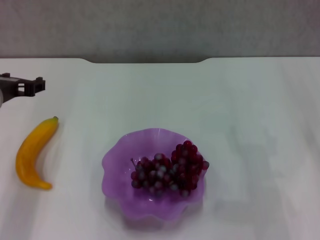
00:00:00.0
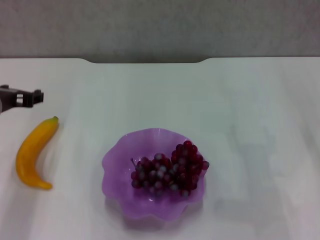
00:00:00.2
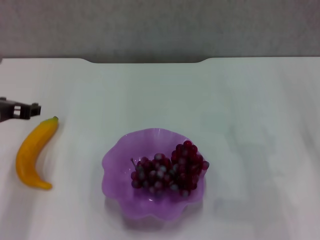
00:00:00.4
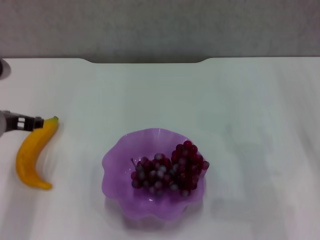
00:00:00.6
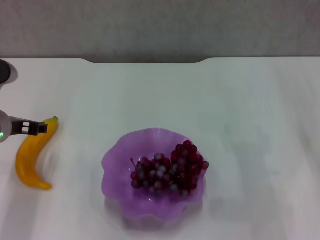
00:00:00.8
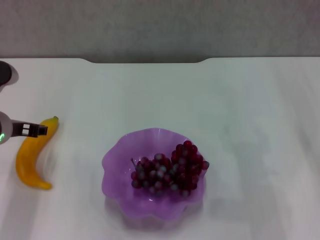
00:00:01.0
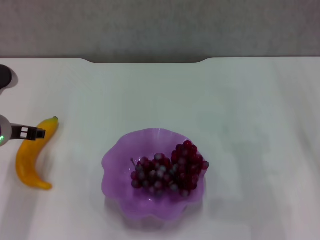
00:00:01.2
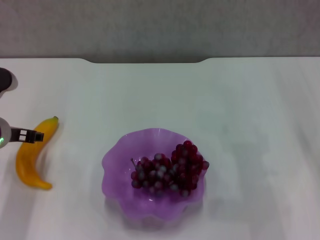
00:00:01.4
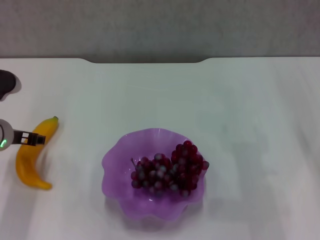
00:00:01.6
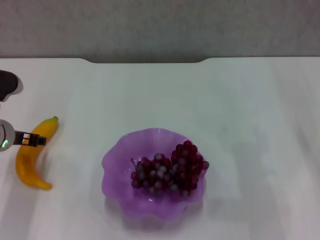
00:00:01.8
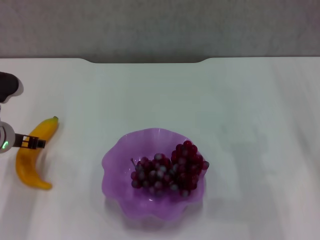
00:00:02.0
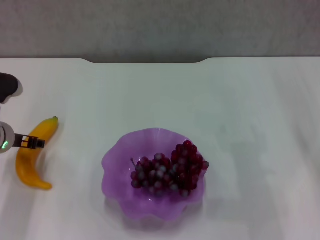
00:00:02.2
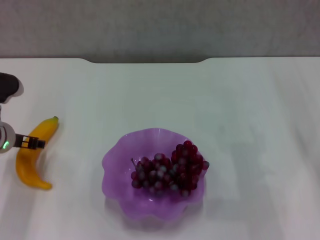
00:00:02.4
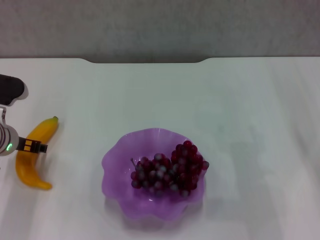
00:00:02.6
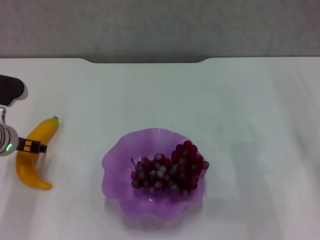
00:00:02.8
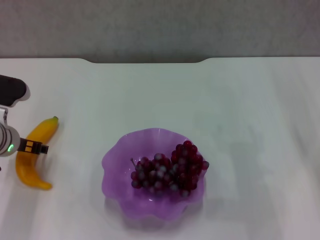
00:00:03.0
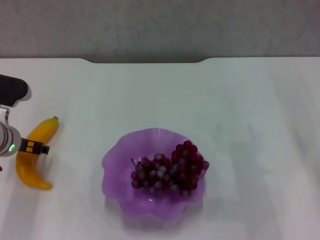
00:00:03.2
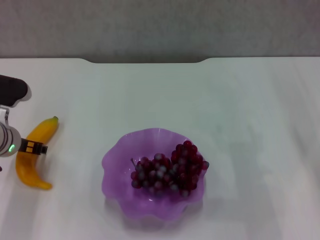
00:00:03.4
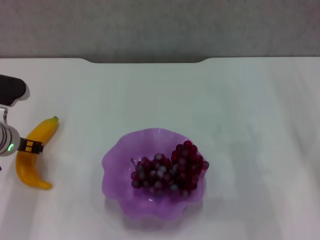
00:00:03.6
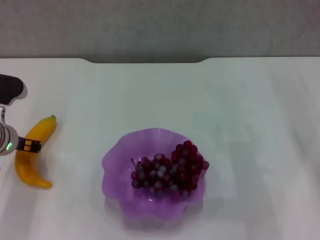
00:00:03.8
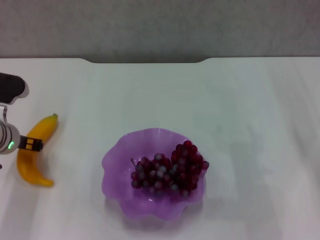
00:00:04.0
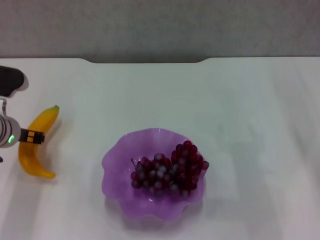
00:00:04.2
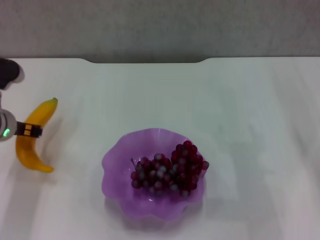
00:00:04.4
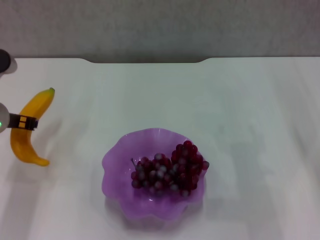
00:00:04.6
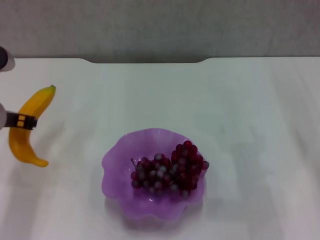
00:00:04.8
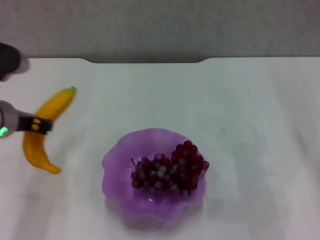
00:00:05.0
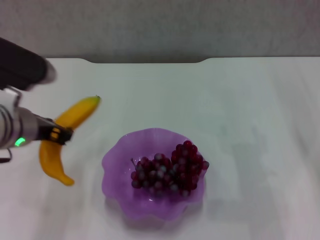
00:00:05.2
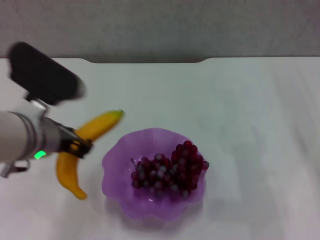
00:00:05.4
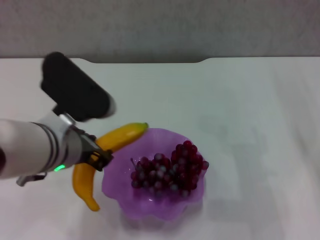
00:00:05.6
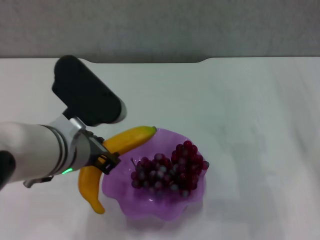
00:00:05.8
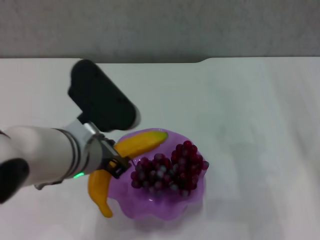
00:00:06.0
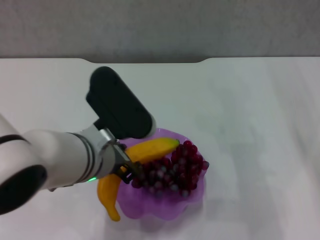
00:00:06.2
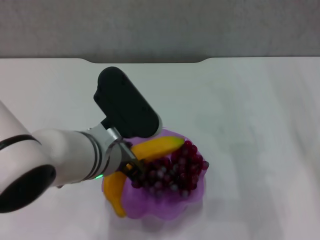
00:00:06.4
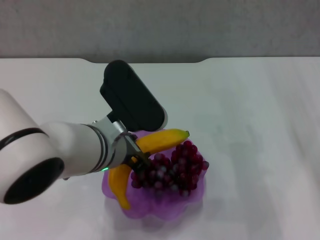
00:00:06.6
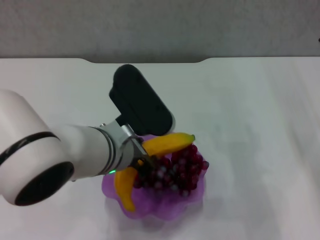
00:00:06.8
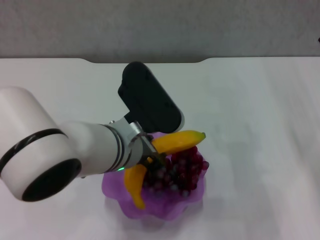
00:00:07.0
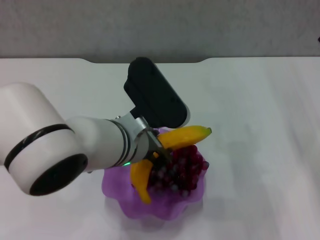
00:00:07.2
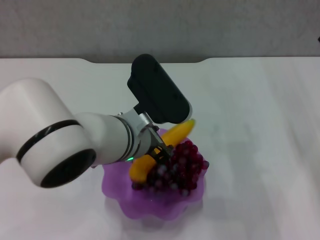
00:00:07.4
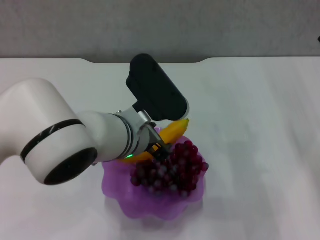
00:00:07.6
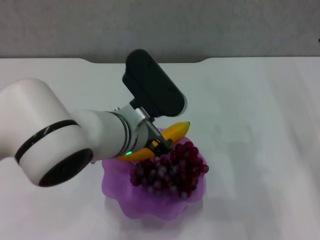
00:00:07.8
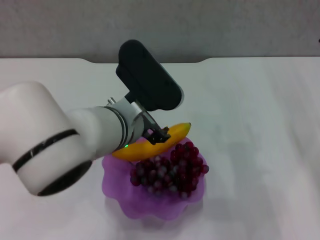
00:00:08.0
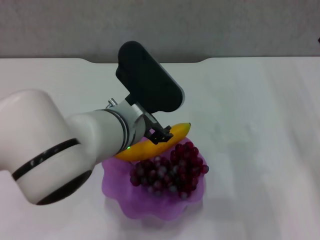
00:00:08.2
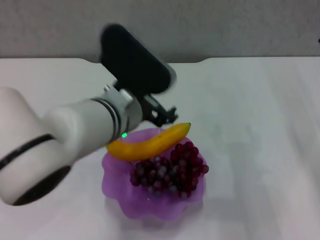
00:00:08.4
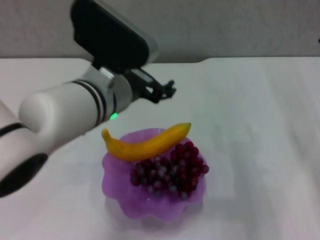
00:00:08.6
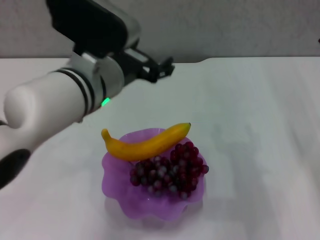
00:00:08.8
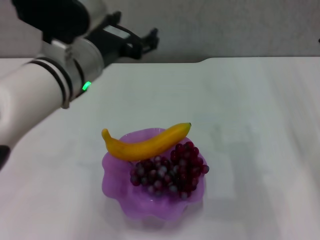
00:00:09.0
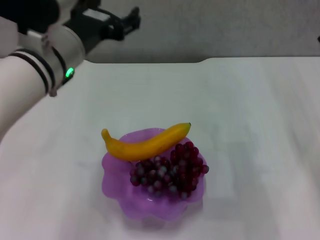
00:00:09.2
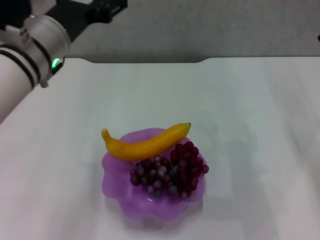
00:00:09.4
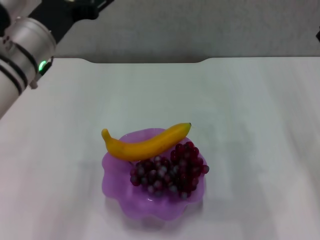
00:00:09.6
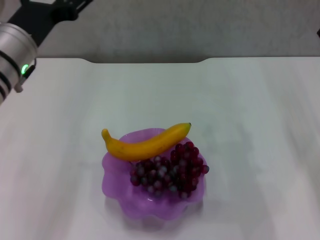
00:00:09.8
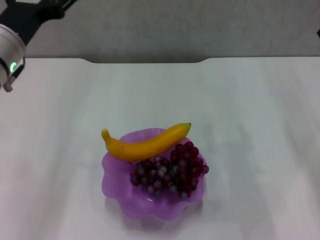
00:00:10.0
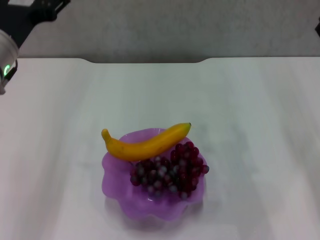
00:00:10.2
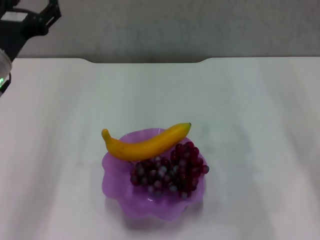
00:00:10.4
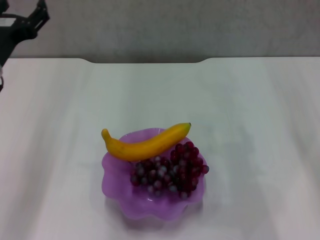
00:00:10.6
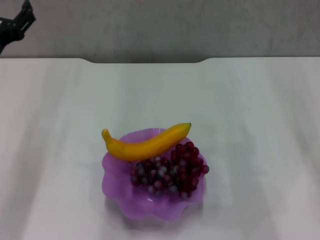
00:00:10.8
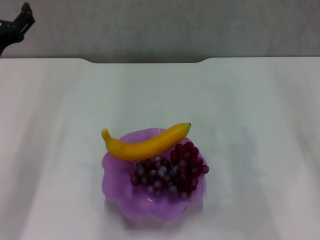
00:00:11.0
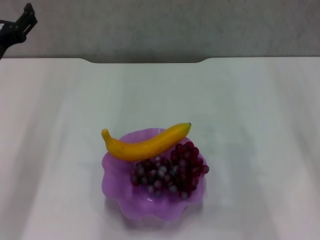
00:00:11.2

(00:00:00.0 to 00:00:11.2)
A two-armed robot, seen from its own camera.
Step, 00:00:00.0 - 00:00:03.8: Grasp the banana with left gripper.
Step, 00:00:04.0 - 00:00:07.8: Place the banana in the purple plate with left gripper.
00:00:00.0 - 00:00:01.6: The left gripper is displaced downward by about 5 cm.
00:00:01.6 - 00:00:03.2: The grippers make only small movements.
00:00:03.2 - 00:00:04.8: The left gripper travels upward by some 5 cm, and closes.
00:00:04.8 - 00:00:06.4: The left gripper shifts about 20 cm to the right and backward.
00:00:06.4 - 00:00:08.0: The left gripper opens its fingers.
00:00:08.0 - 00:00:09.6: The left gripper travels to the left and upward by roughly 10 cm, and opens its fingers.
00:00:09.6 - 00:00:11.2: The left gripper shifts roughly 10 cm to the left and downward.

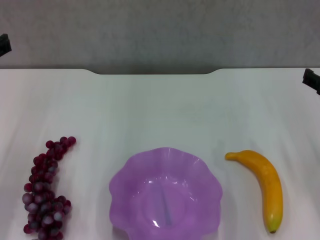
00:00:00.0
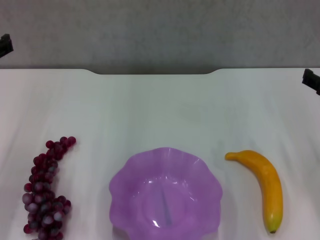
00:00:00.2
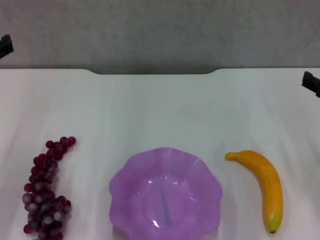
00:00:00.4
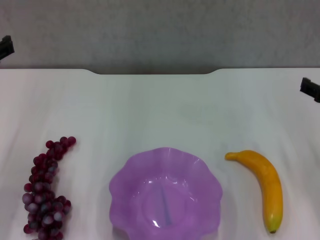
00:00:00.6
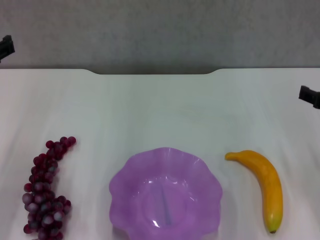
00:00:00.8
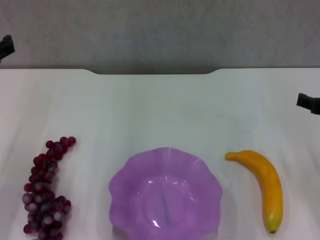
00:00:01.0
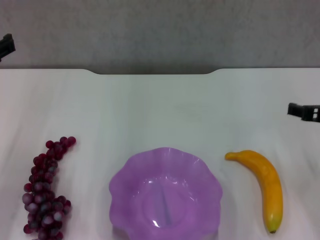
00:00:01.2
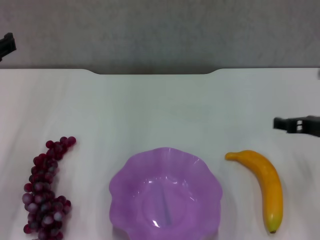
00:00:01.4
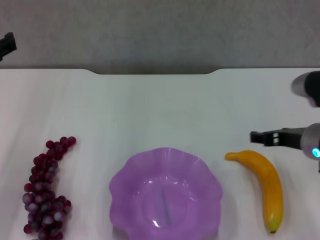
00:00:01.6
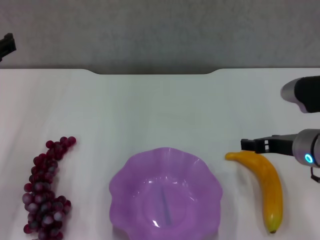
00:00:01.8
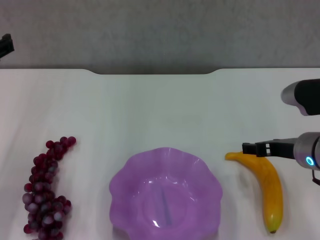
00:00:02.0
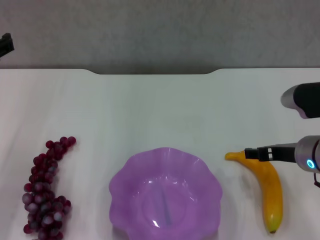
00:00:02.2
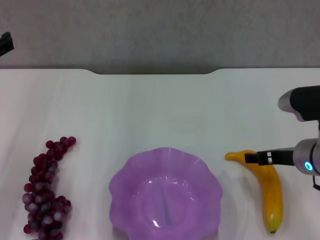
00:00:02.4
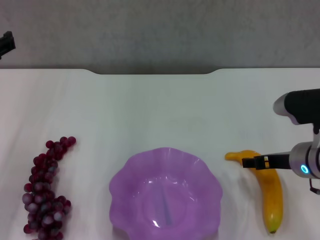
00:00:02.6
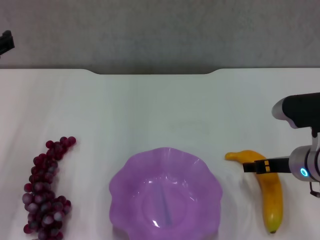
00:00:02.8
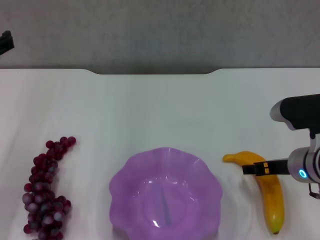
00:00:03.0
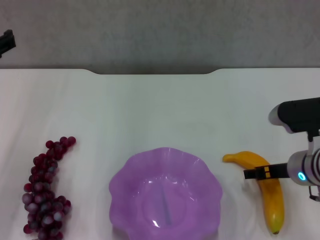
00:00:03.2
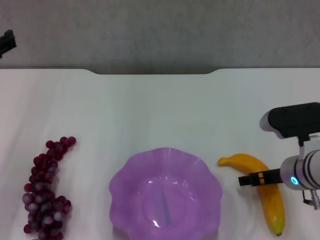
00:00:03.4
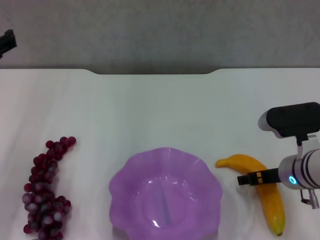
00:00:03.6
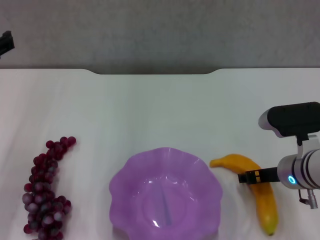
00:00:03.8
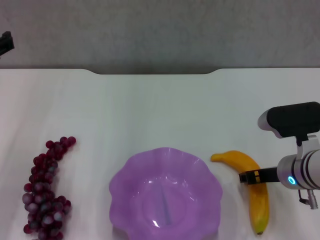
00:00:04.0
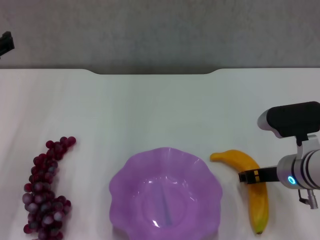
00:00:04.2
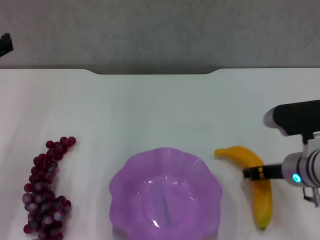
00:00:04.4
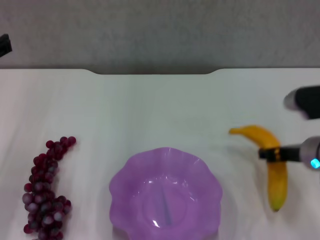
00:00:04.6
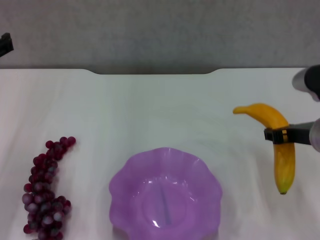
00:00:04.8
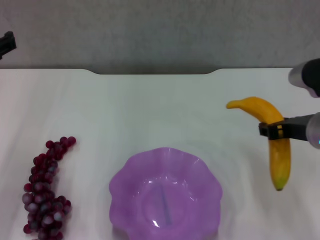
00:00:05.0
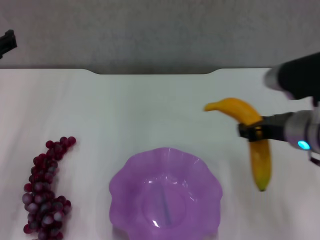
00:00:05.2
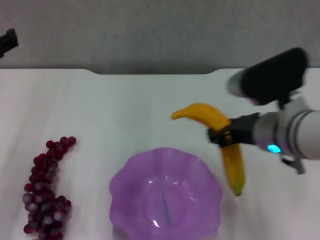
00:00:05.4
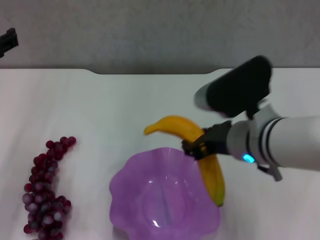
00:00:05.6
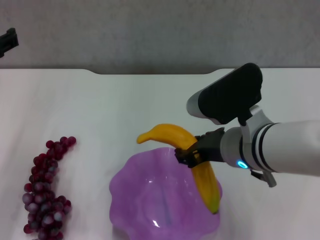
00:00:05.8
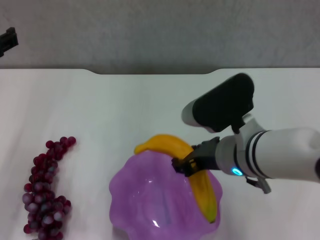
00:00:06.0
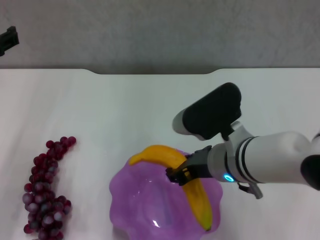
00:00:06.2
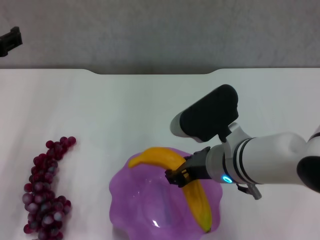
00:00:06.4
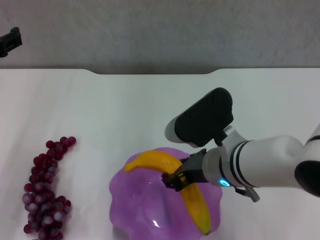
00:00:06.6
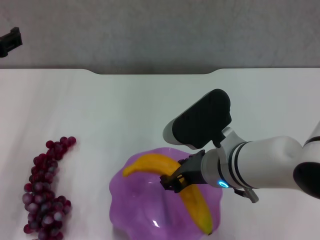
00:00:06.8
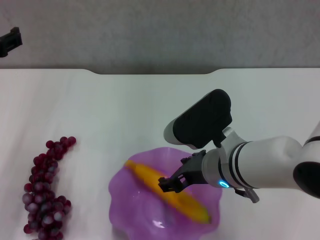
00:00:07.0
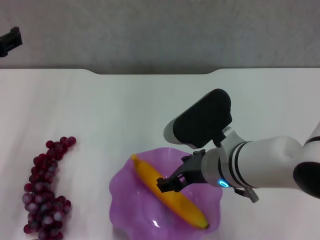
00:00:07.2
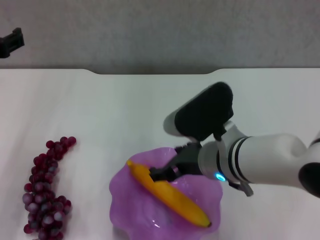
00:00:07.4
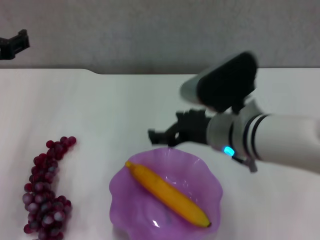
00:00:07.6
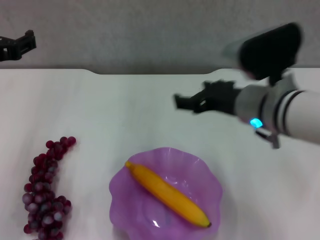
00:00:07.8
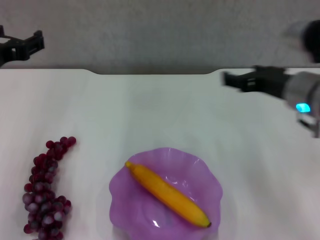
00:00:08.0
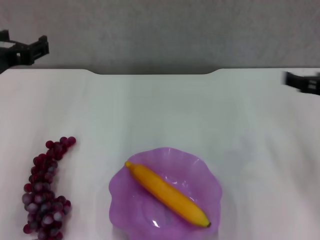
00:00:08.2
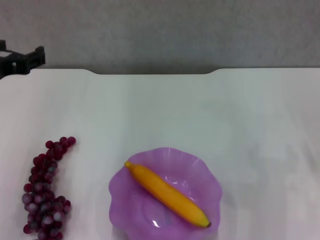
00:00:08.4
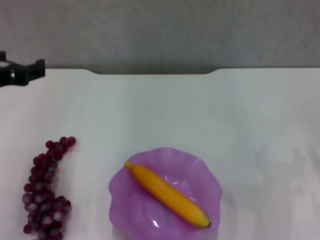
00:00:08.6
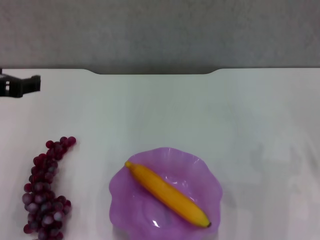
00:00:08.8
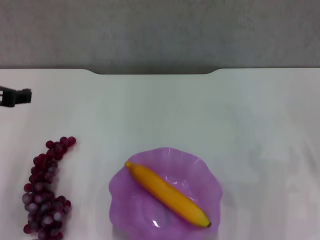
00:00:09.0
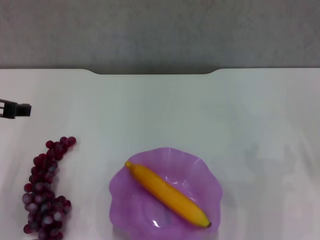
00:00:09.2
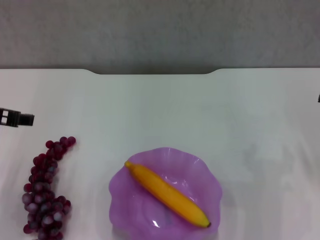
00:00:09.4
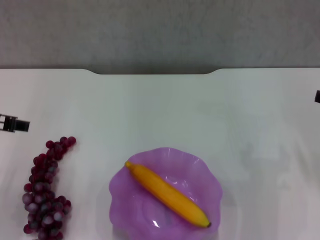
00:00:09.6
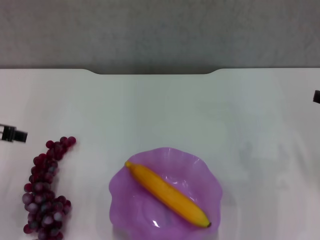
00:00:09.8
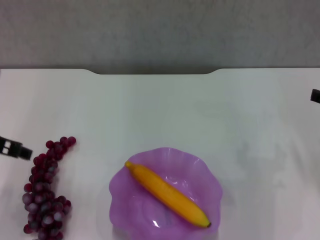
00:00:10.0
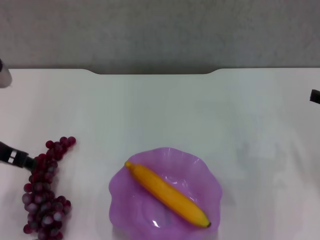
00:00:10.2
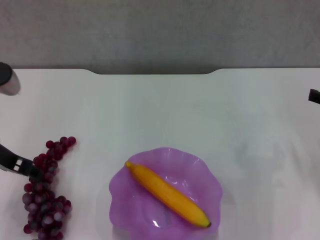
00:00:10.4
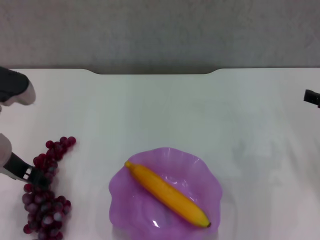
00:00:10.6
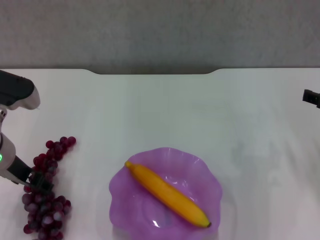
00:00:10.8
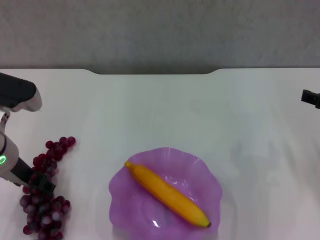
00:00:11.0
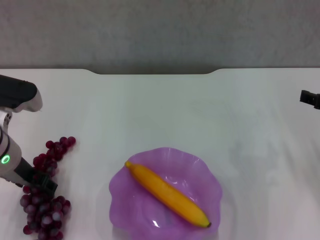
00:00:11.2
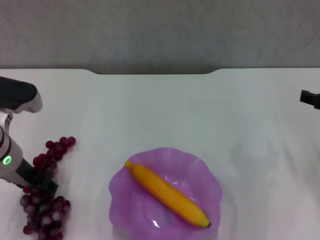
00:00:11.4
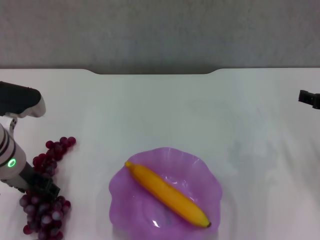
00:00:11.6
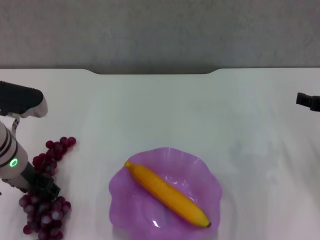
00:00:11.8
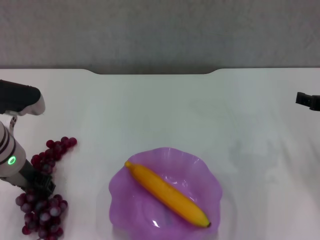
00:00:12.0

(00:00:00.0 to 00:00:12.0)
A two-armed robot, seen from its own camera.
Step, 00:00:00.0 - 00:00:03.8: Grasp the banana with right gripper.
Step, 00:00:04.0 - 00:00:07.2: Place the banana in the purple plate with right gripper.
00:00:00.0 - 00:00:01.6: The right gripper travels to the left by about 5 cm.
00:00:01.6 - 00:00:03.0: The grippers make only small movements.
00:00:03.0 - 00:00:04.4: The right gripper closes its fingers.
00:00:04.4 - 00:00:06.0: The right gripper heads to the left and upward, covering approximately 15 cm.
00:00:06.0 - 00:00:07.6: The right gripper opens up.
00:00:07.6 - 00:00:09.0: The right gripper travels to the right by roughly 25 cm.
00:00:09.0 - 00:00:10.4: The left gripper moves downward, some 5 cm.
00:00:10.4 - 00:00:12.0: The left gripper goes approximately 5 cm downward.
